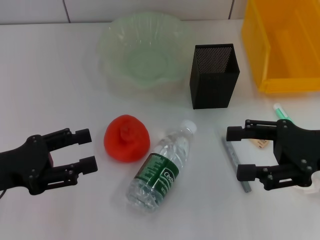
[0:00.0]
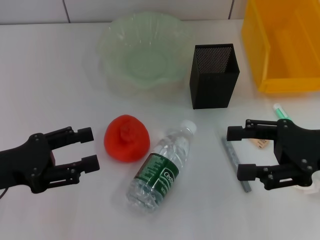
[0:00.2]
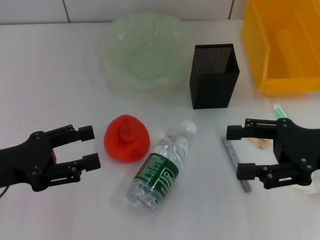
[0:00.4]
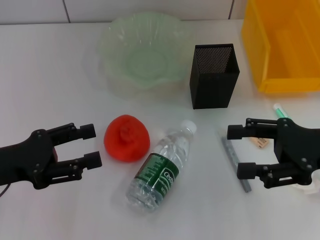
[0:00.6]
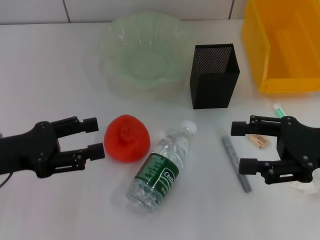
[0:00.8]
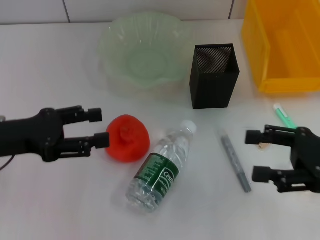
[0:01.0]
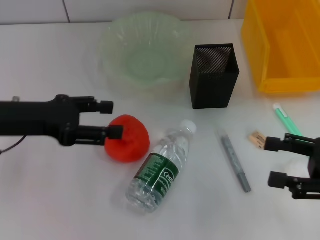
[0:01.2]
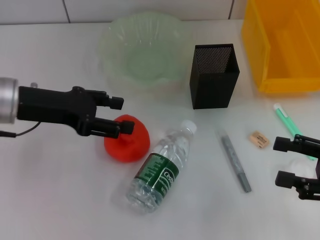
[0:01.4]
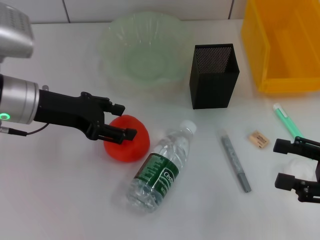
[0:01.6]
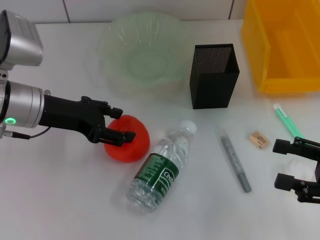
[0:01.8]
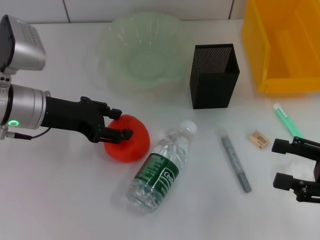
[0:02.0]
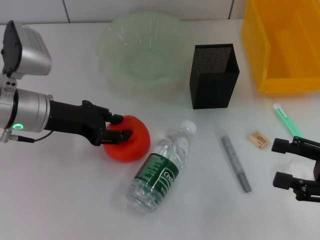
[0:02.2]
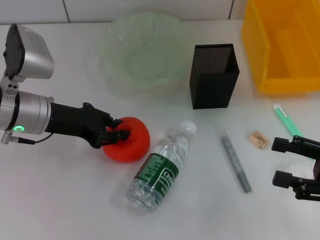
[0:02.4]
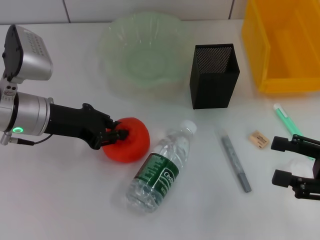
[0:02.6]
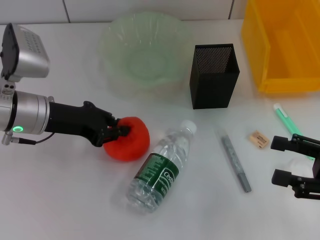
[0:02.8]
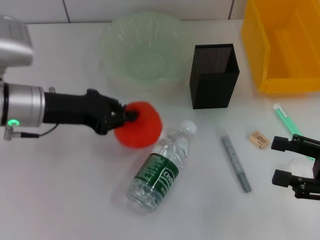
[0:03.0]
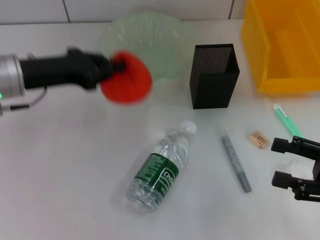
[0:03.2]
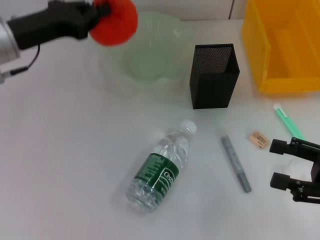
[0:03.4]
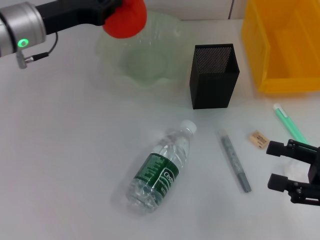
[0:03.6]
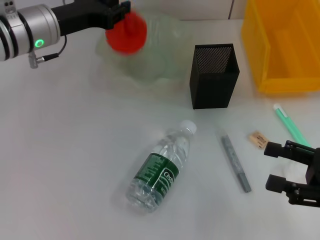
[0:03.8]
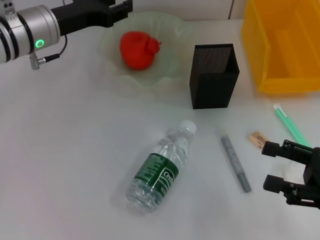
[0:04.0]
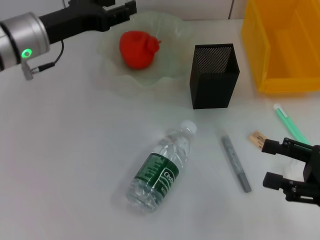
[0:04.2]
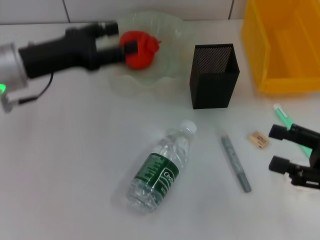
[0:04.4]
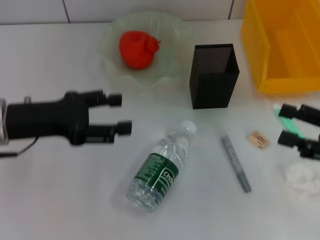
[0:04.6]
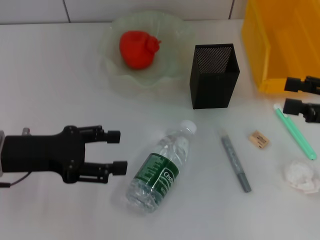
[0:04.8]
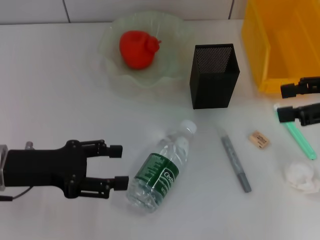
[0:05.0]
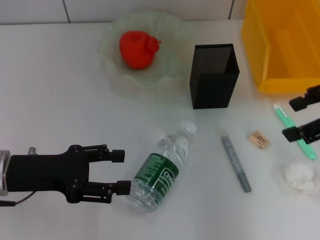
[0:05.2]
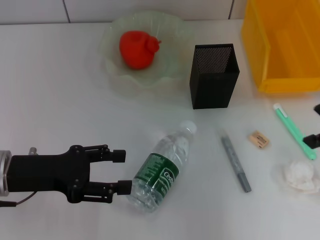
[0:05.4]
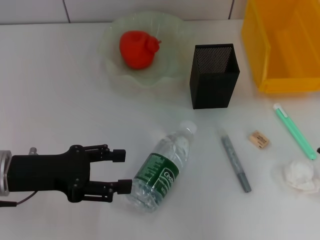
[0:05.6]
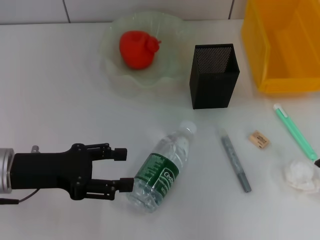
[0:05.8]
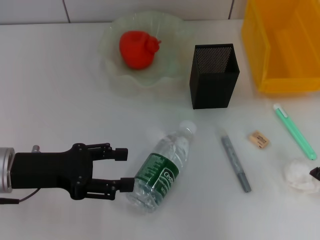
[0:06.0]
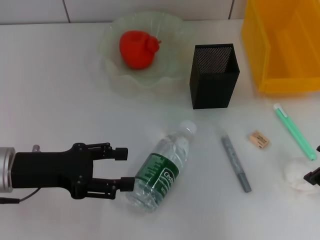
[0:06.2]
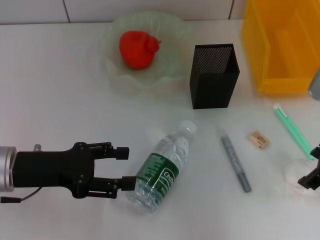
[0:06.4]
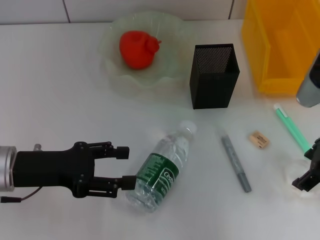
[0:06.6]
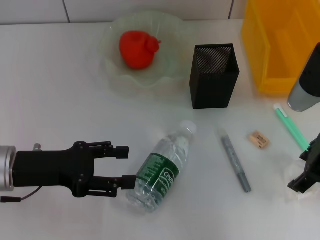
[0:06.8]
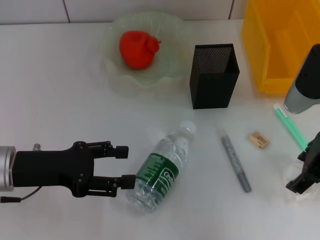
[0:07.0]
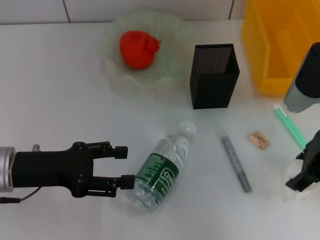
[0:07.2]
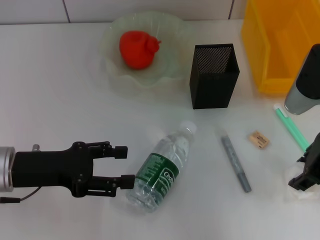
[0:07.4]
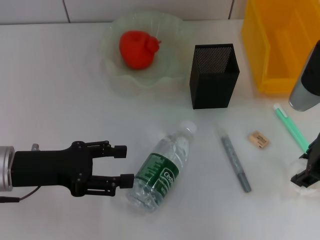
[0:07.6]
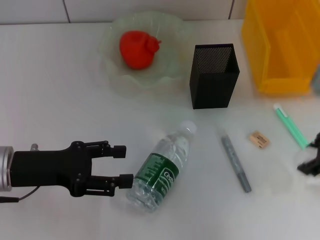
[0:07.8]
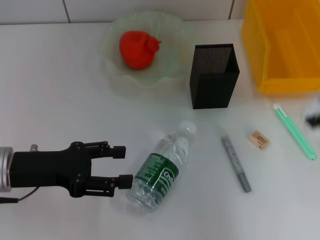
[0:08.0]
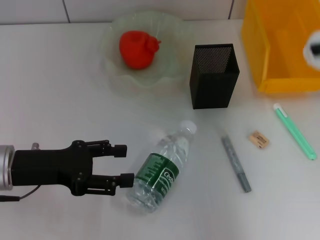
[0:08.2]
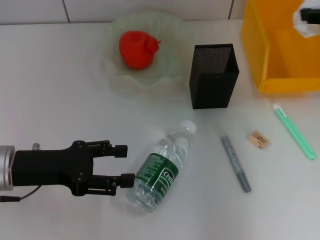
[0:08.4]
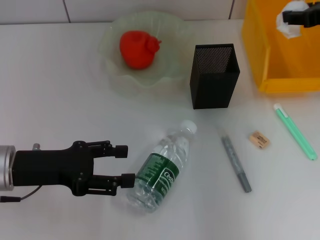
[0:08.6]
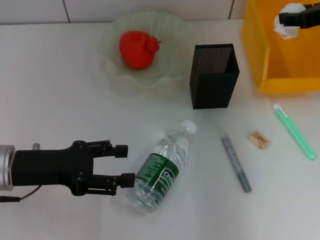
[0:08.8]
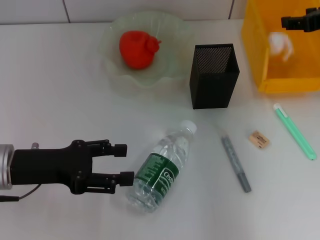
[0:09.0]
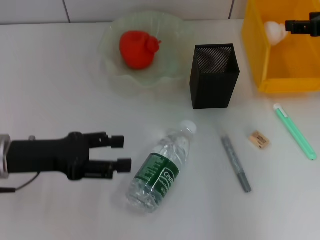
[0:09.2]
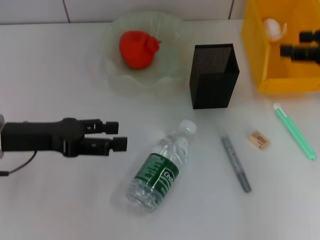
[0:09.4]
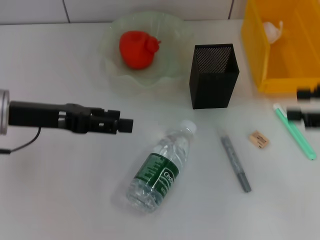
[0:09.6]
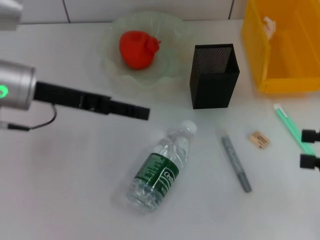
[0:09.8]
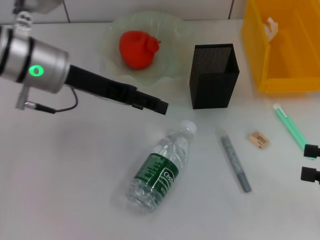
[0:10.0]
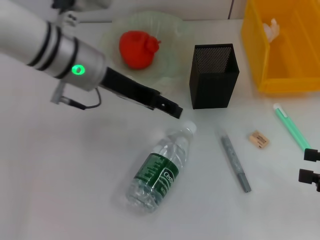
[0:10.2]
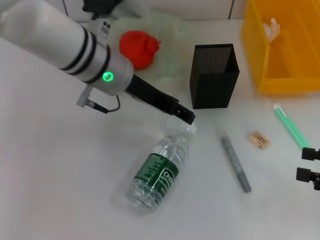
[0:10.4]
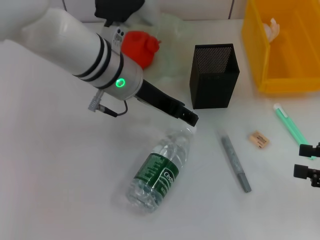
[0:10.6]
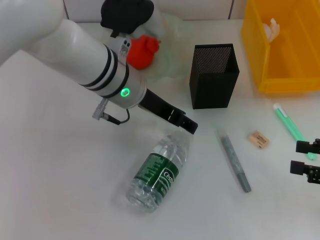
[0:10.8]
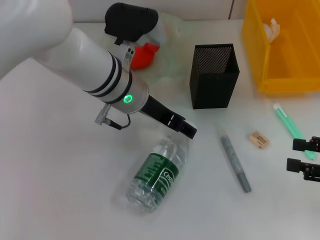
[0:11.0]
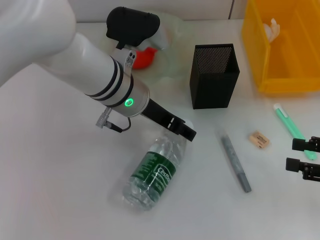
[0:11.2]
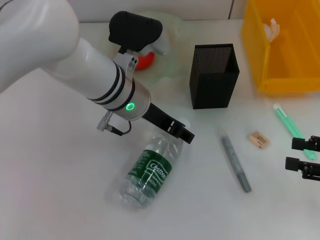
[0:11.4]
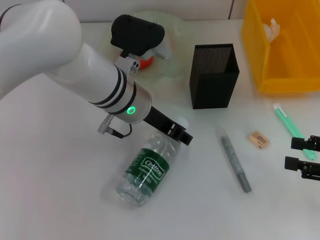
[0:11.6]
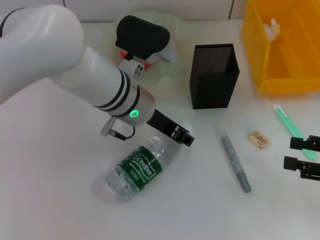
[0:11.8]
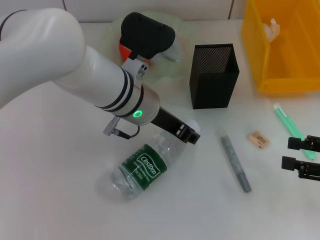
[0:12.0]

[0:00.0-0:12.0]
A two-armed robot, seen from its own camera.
Step, 0:00.0 to 0:02.4: Grab the orange with the left hand.
Step, 0:02.6 to 0:04.0: Place the orange into the fruit bowl with the left hand.
Step, 0:04.2 to 0:07.4: Grab the paper ball with the right hand.
Step, 0:07.6 to 0:09.2: Place the paper ball into the trash can with the right hand.
Step, 0:09.6 to 0:12.0: Grab the water bottle with the left hand.
0:00.0 to 0:01.6: The left gripper goes roughly 15 cm forward, to the right and upward. Meanwhile the right gripper travels backward and to the right by some 10 cm.
0:01.6 to 0:03.0: The left gripper closes up.
0:03.0 to 0:04.4: The left gripper moves some 10 cm forward and comes back, and opens its fingers.
0:04.4 to 0:06.0: The left gripper goes about 10 cm backward and downward. The right gripper shifts approximately 15 cm upward, forward and to the left.
0:06.0 to 0:07.6: The right gripper moves about 5 cm, and closes.
0:07.6 to 0:09.0: The right gripper travels forward and to the right by some 10 cm.
0:09.0 to 0:10.4: The right gripper shifts some 25 cm backward, downward and to the right, while the left gripper is displaced to the right, forward and upward by roughly 20 cm.
0:10.4 to 0:12.0: The left gripper moves some 5 cm, and closes up.

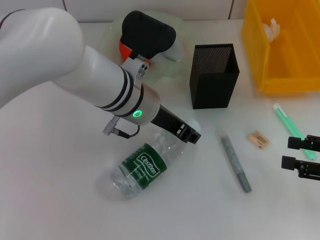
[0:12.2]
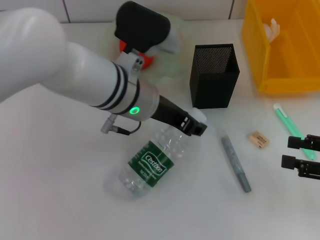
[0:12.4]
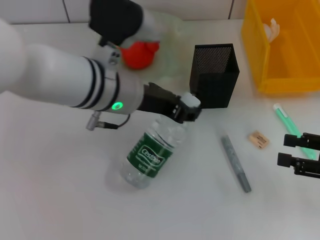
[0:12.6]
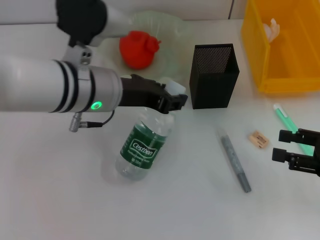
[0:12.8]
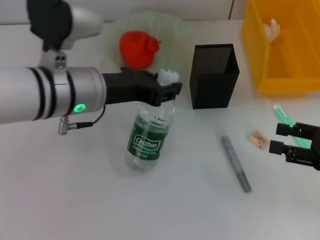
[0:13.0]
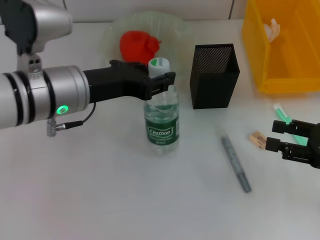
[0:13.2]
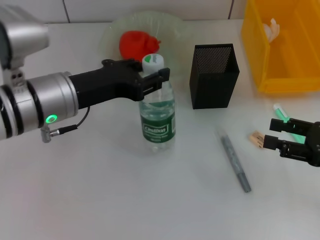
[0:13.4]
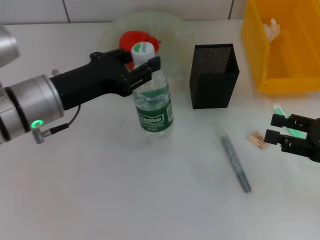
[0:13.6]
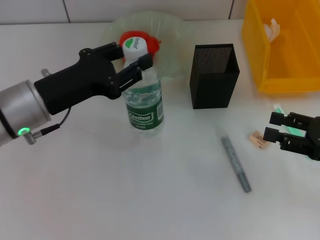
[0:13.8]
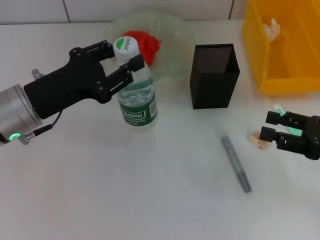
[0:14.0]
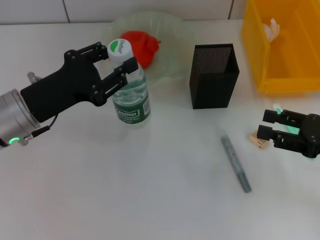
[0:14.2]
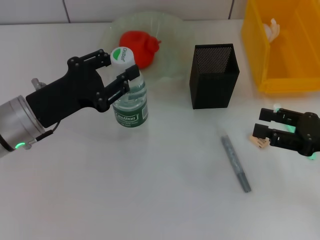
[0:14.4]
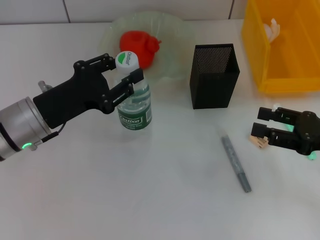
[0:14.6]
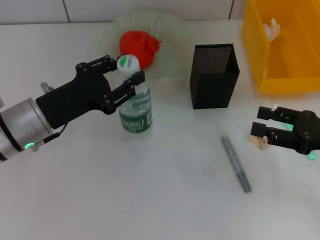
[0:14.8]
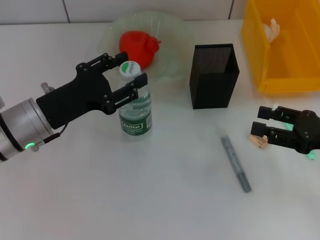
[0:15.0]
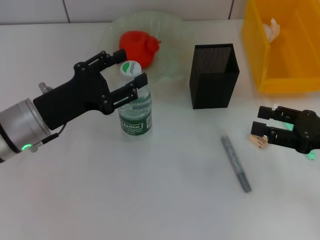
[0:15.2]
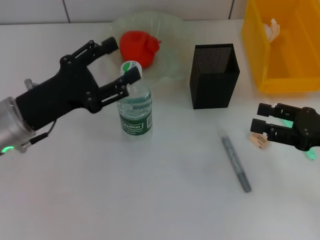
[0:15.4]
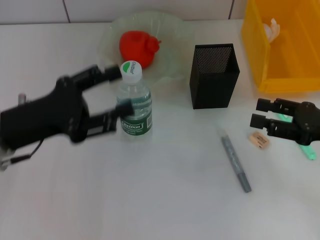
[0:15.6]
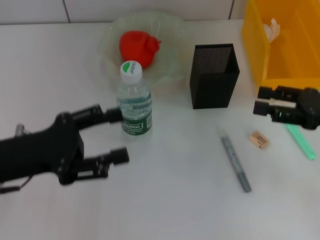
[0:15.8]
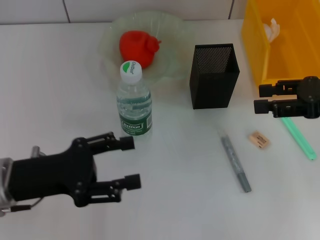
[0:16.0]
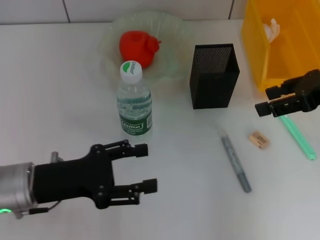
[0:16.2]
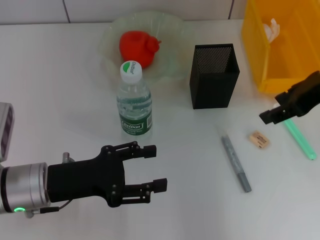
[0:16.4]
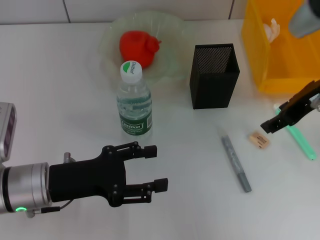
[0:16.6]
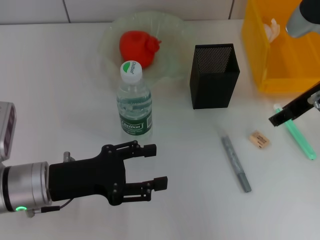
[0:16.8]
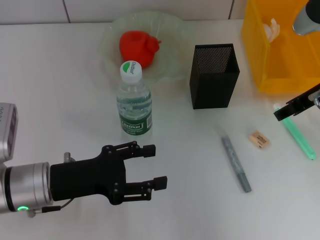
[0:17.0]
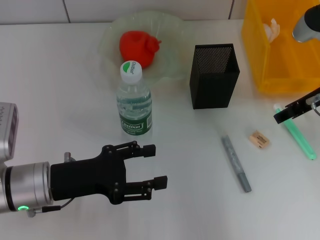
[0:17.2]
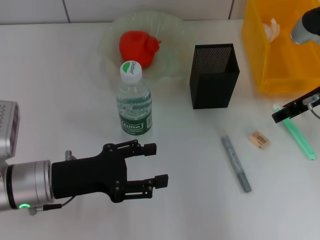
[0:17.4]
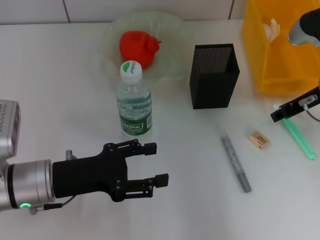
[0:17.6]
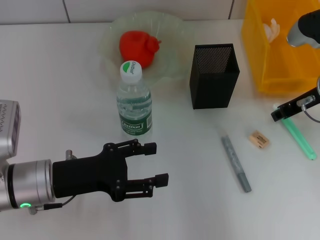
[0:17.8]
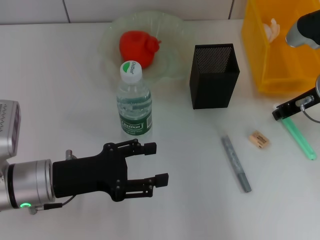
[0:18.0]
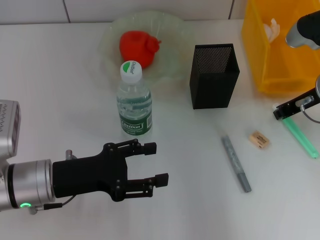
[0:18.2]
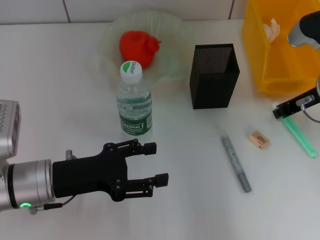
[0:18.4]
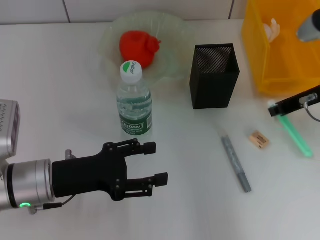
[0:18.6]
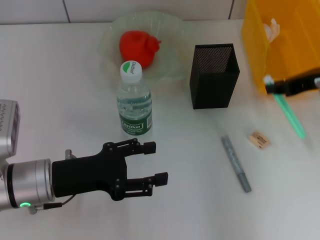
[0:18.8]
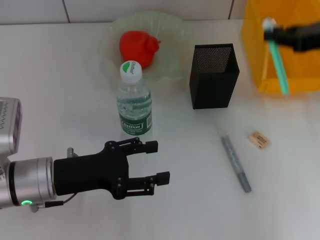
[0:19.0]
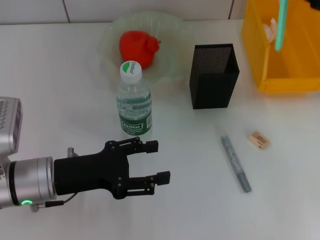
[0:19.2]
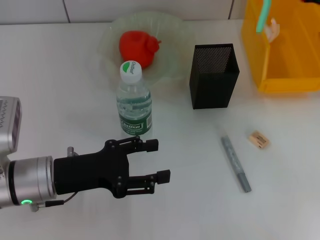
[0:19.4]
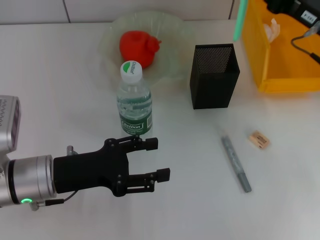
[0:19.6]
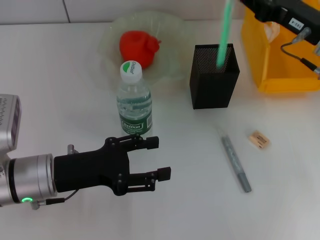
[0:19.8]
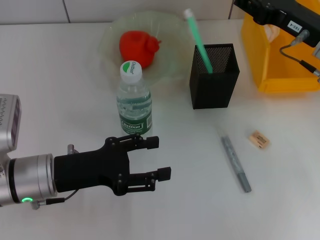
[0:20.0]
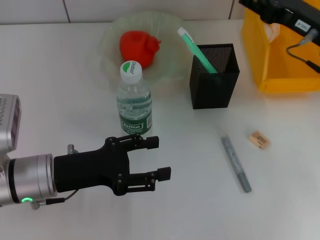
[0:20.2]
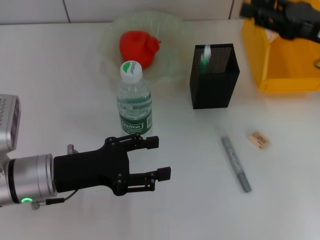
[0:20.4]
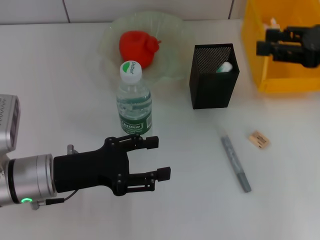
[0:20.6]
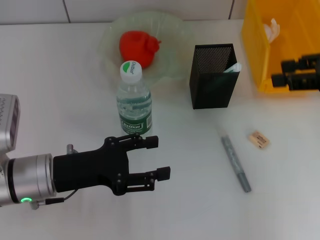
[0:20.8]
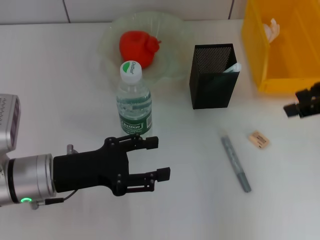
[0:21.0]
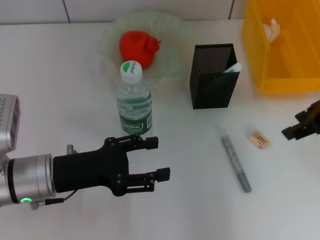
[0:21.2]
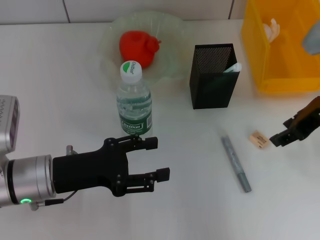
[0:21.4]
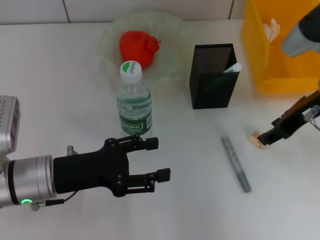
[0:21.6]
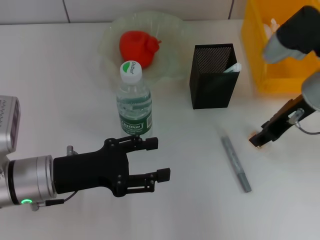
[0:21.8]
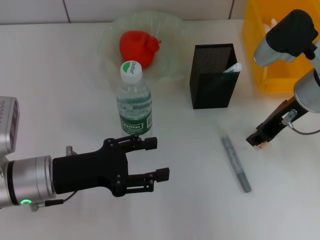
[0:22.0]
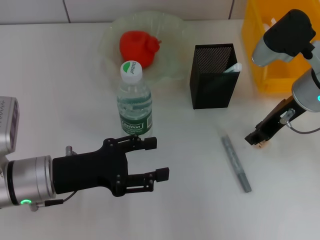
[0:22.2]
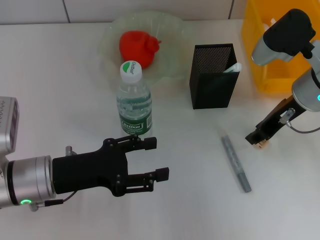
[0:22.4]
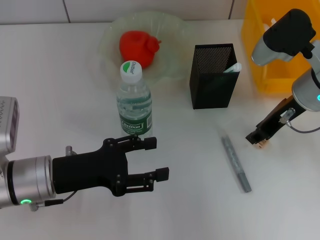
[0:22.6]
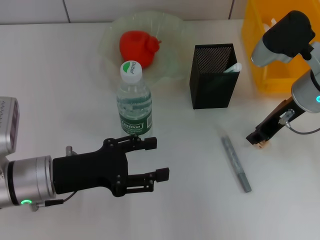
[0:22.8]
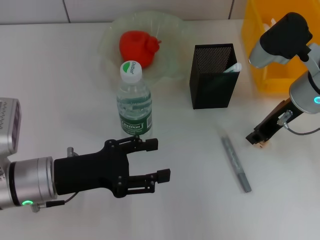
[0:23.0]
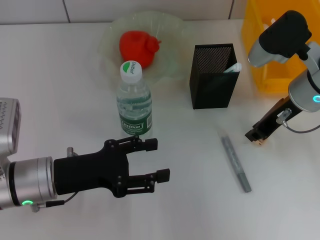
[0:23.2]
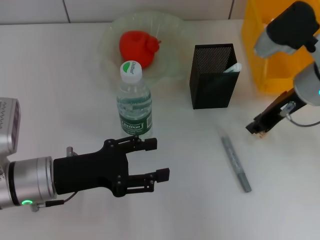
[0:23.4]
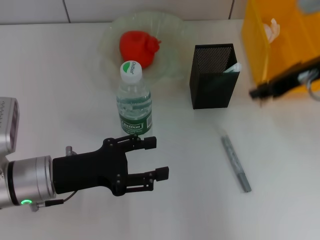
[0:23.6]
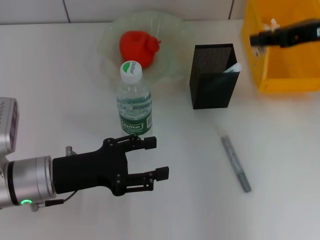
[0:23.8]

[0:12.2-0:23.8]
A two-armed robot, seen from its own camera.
Step, 0:12.2 to 0:15.2: Place the water bottle on the table with the left hand.
Step, 0:15.4 to 0:18.2: Grab the blue utility knife with the right hand.
Step, 0:18.4 to 0:20.2: Place the blue utility knife into the pen holder with the right hand.
Step, 0:20.4 to 0:23.0: Grab the eraser with the right hand.
0:12.2 to 0:13.6: The left gripper travels to the left and backward by some 15 cm.
0:13.6 to 0:15.0: The left gripper goes approximately 5 cm downward.
0:15.0 to 0:16.6: The right gripper goes about 15 cm upward, to the left and forward, while the left gripper is displaced backward by roughly 5 cm, and opens.
0:16.6 to 0:18.0: The right gripper is displaced downward by some 5 cm, and closes its fingers.
0:19.4 to 0:21.0: The right gripper ends up approximately 5 cm from where it was, and opens its fingers.
0:21.0 to 0:22.4: The right gripper heads to the left and downward, covering some 10 cm.
0:22.4 to 0:23.8: The right gripper goes about 10 cm upward and to the right.
